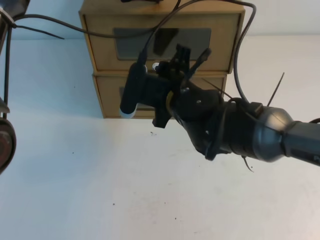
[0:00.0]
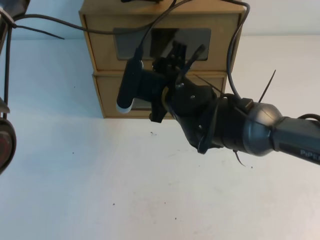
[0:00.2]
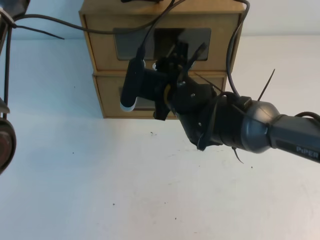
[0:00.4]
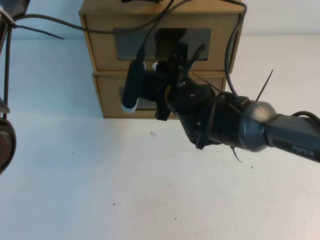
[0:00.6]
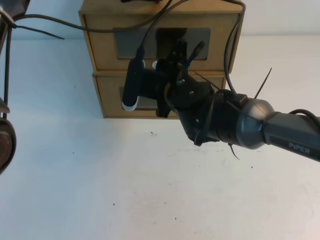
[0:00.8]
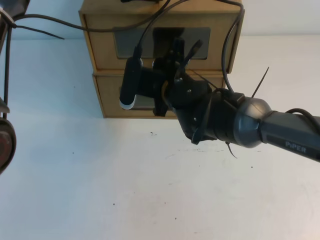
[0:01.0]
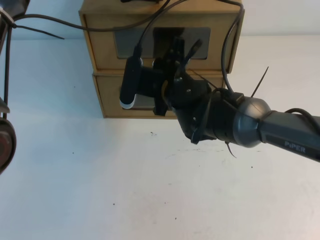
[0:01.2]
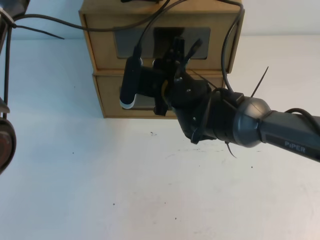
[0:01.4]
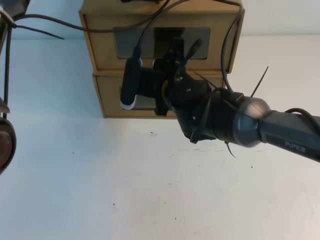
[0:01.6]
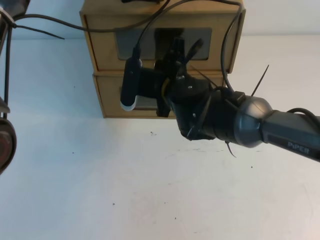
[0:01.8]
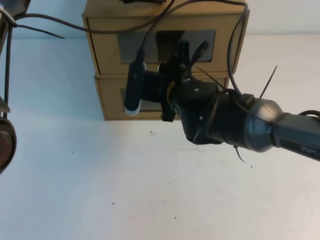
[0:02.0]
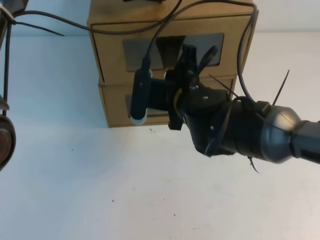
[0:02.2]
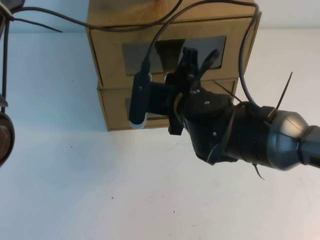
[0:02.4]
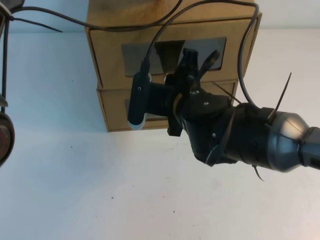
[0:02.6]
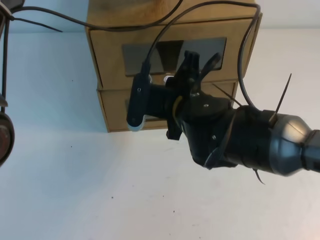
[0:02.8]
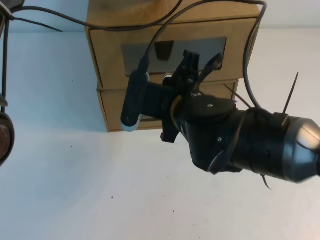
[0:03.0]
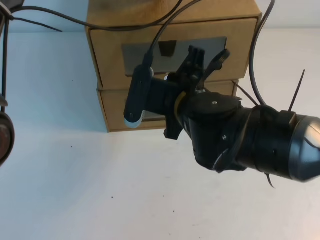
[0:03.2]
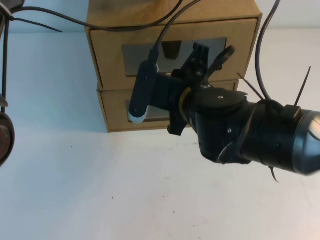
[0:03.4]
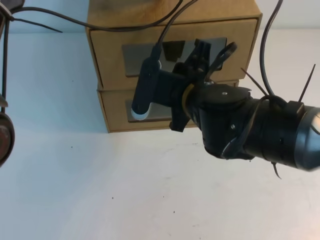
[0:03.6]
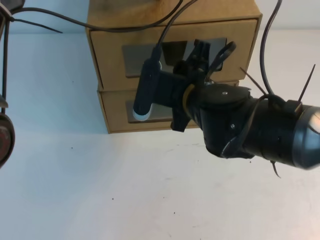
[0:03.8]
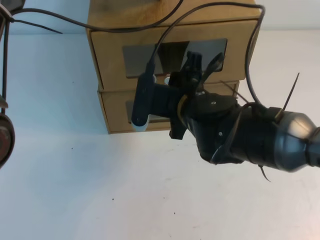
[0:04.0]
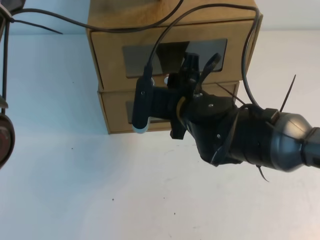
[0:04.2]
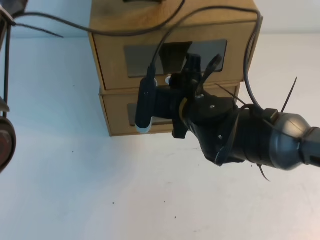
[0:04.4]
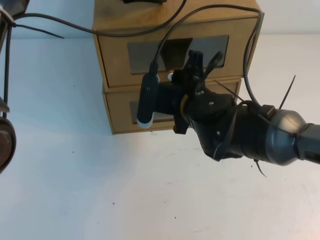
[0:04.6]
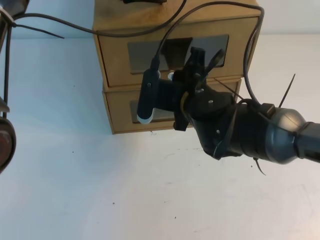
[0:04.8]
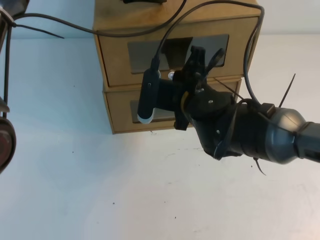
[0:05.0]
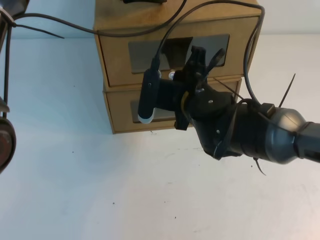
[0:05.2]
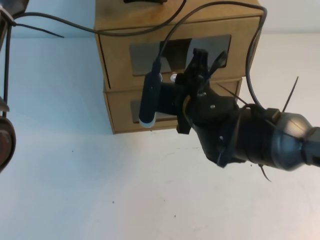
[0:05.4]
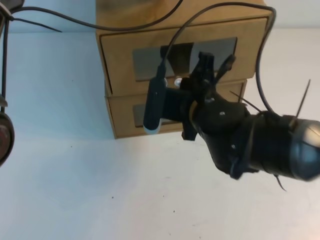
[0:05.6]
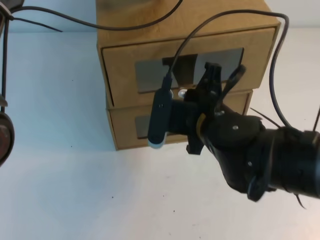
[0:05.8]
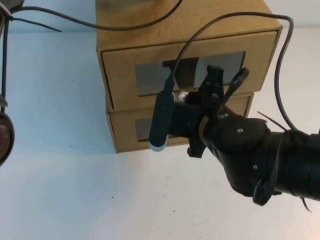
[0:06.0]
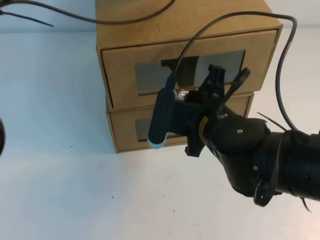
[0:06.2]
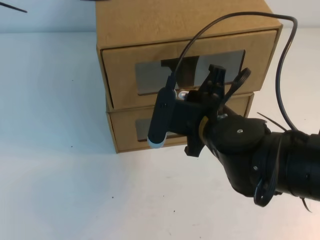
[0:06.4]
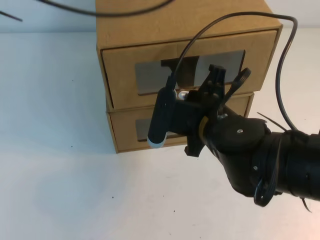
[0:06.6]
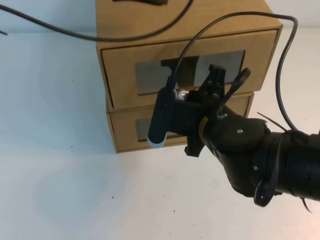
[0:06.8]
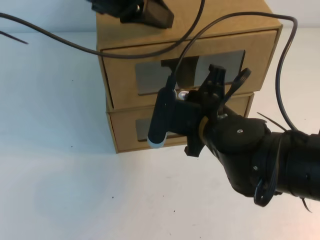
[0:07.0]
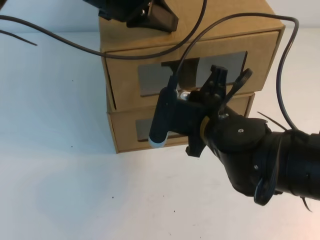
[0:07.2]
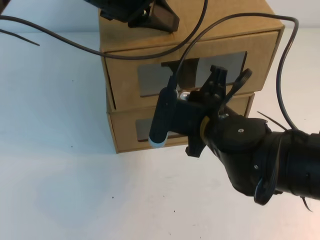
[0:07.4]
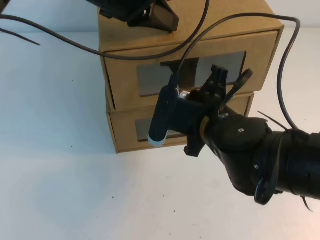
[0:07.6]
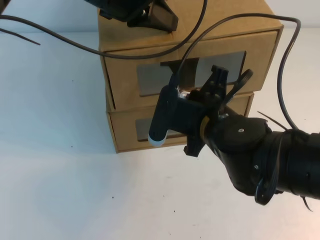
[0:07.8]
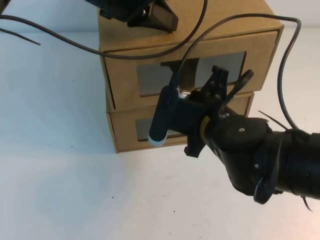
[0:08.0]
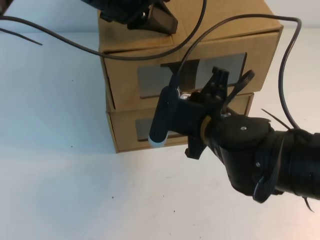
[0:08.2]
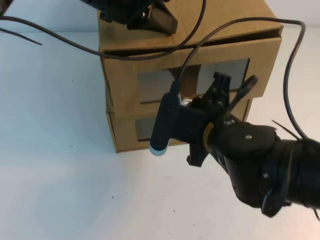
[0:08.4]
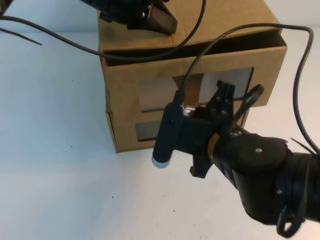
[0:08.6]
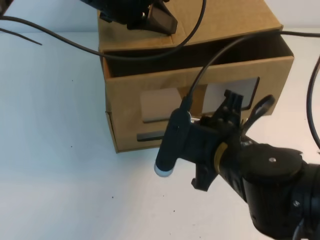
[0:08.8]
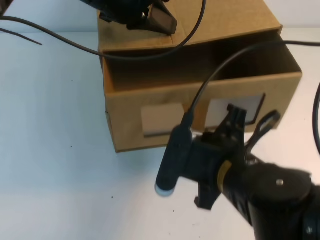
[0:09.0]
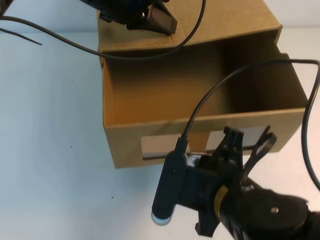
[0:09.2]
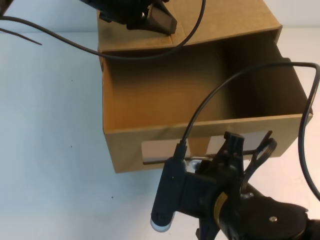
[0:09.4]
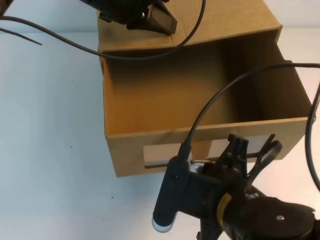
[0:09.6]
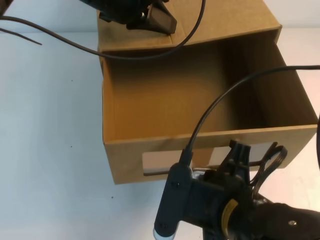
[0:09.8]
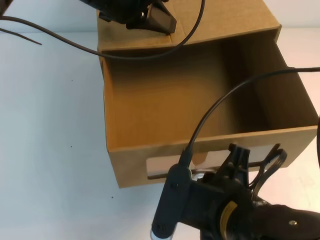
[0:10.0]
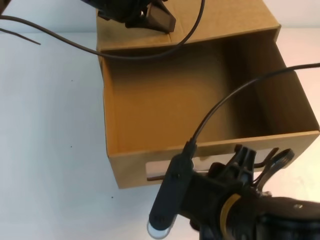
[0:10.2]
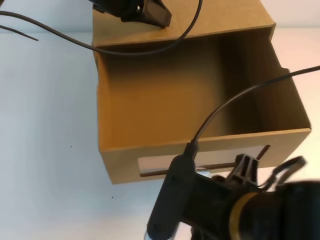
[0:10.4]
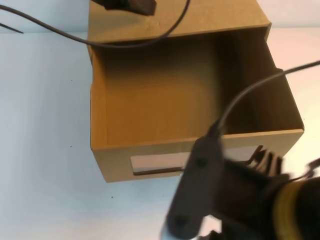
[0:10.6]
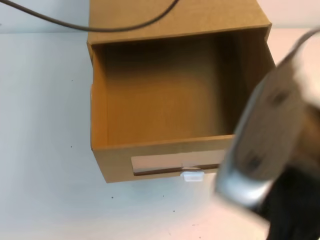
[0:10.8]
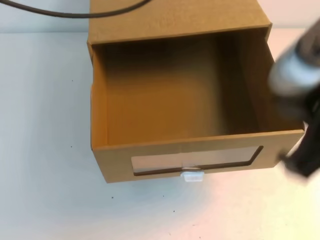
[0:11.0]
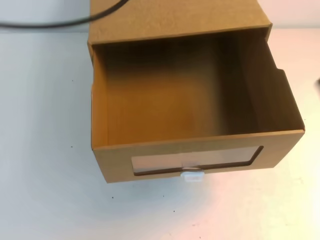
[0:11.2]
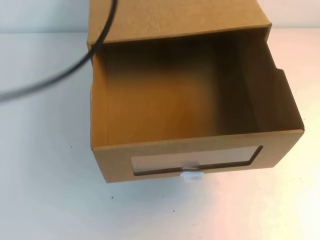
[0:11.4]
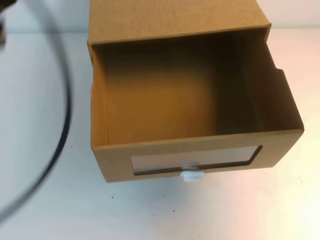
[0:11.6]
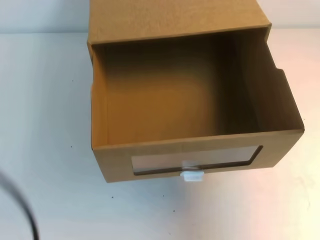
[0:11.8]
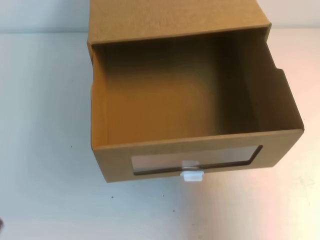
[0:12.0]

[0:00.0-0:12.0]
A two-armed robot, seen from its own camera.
Task of the whole recording: open the shoebox on the table.
0.0 to 1.6 s: The right gripper closes its fingers.
1.6 to 3.0 s: The right gripper is displaced backward by roughly 10 cm.
3.0 to 4.4 s: The right gripper opens its fingers.
4.4 to 6.0 s: The right gripper shifts by about 5 cm, and closes its fingers.
6.0 to 7.6 s: The left gripper travels backward by approximately 5 cm.
7.6 to 9.0 s: The right gripper goes some 5 cm backward.
9.0 to 10.4 s: The right gripper travels backward by some 10 cm, and opens.
10.4 to 12.0 s: The left gripper heads backward and to the left, covering about 30 cm, while the right gripper shifts some 25 cm to the right and upward, and closes up.

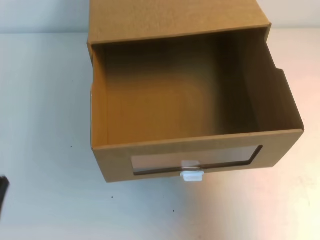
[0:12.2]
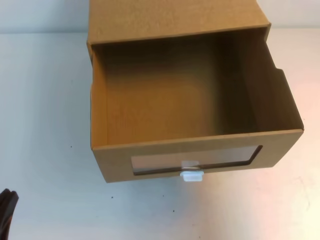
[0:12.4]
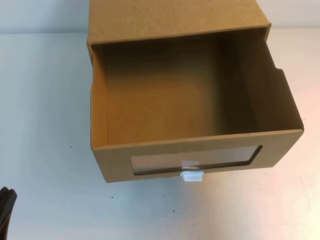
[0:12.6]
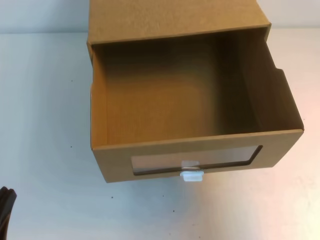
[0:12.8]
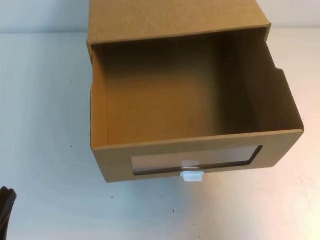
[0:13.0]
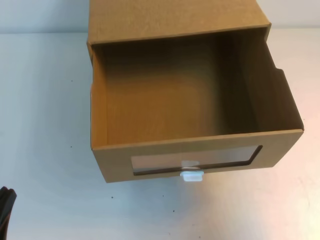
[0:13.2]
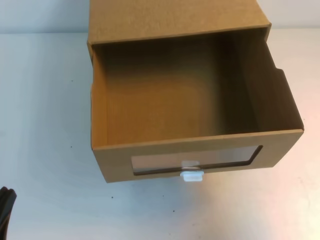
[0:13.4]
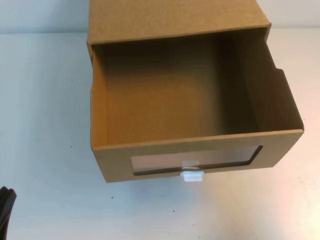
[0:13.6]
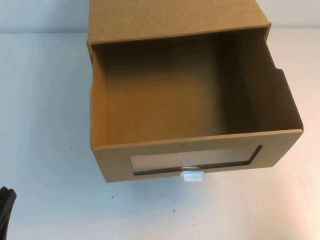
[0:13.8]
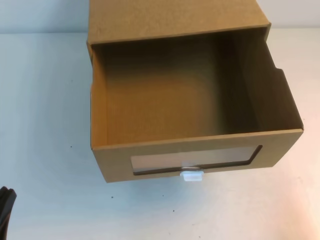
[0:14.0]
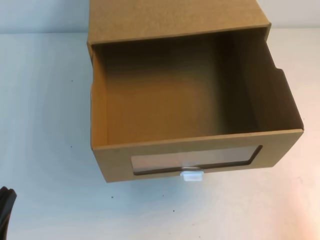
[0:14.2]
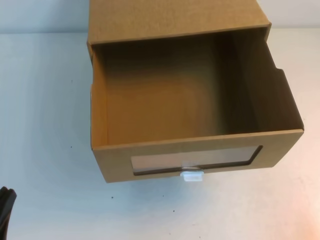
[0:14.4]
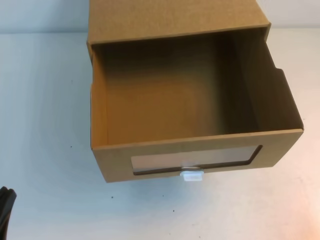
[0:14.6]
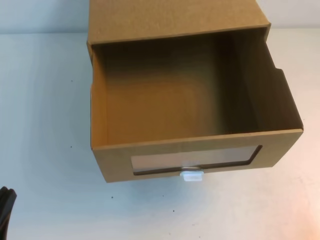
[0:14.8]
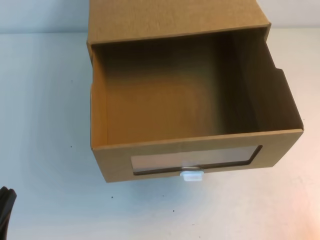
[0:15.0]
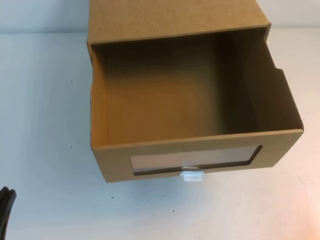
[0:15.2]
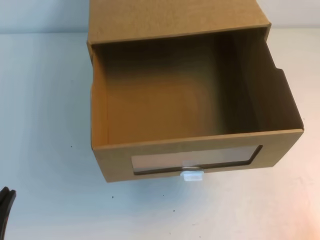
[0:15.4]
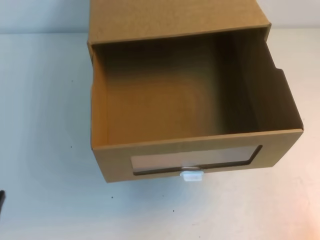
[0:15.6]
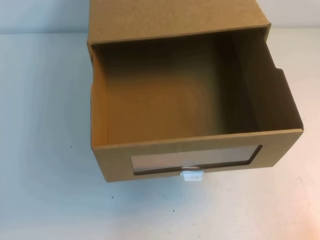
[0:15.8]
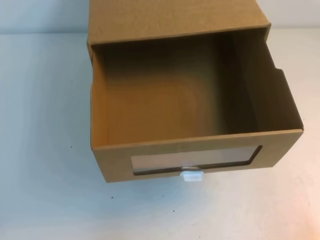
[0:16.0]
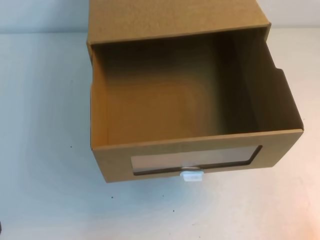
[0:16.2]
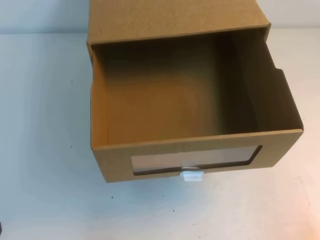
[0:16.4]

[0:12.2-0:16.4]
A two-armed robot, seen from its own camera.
Task of the whole recording: open the shoebox on the table.
Step, 12.2 to 16.4 s: Open the shoe box.
12.2 to 13.6 s: The left gripper moves downward, about 10 cm. Meanwhile the right gripper ends up roughly 5 cm from where it was.
13.6 to 15.0 s: The right gripper is displaced downward and backward by about 20 cm.

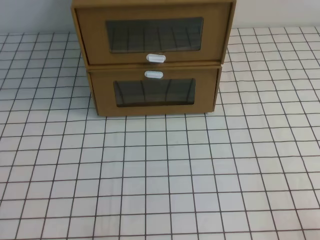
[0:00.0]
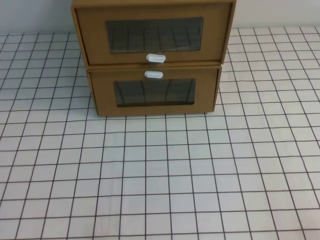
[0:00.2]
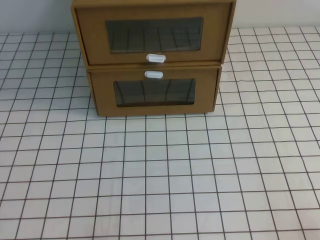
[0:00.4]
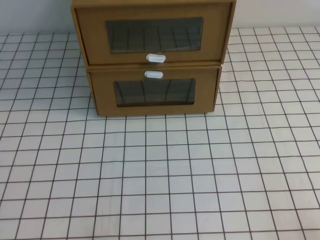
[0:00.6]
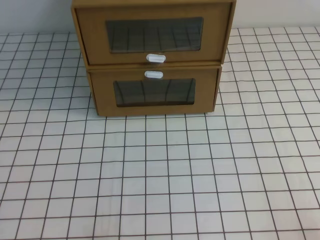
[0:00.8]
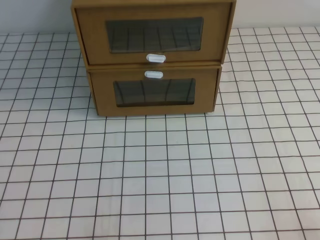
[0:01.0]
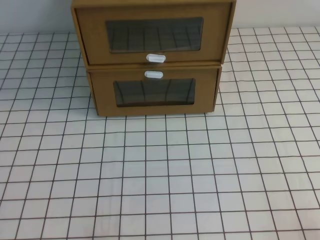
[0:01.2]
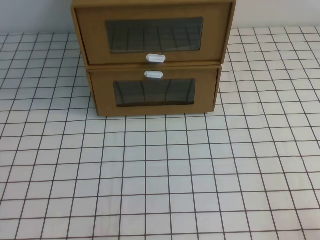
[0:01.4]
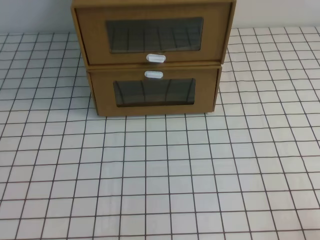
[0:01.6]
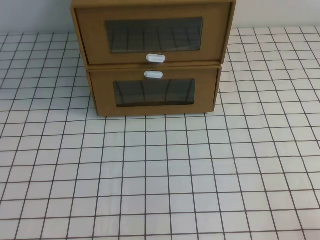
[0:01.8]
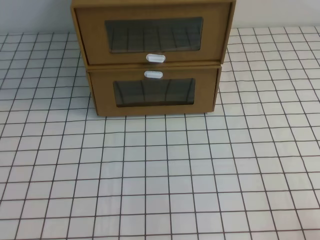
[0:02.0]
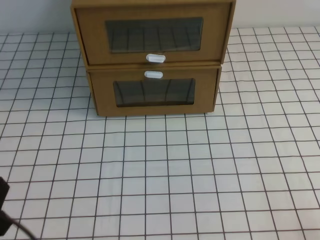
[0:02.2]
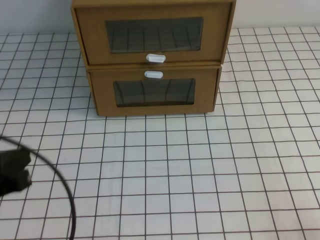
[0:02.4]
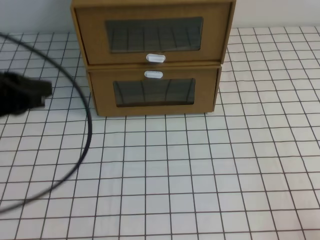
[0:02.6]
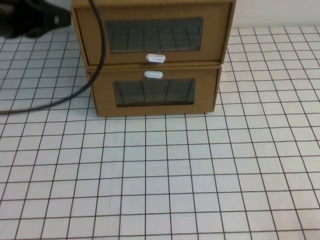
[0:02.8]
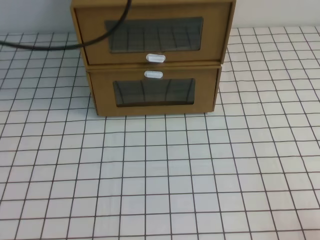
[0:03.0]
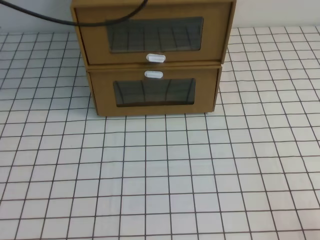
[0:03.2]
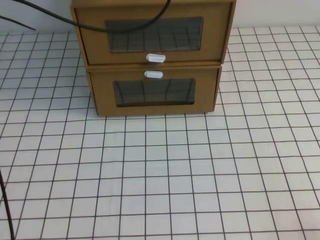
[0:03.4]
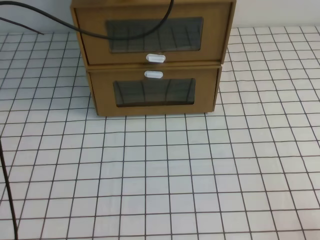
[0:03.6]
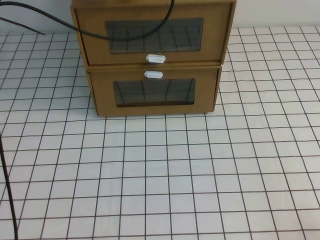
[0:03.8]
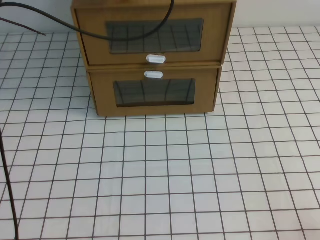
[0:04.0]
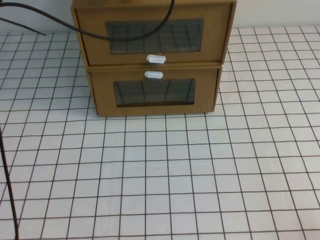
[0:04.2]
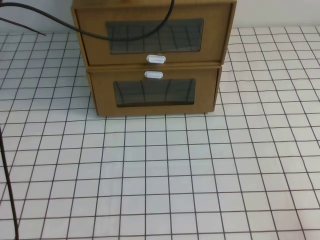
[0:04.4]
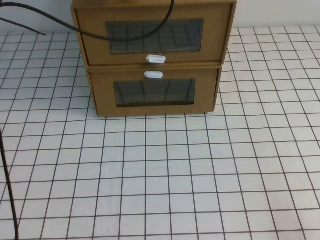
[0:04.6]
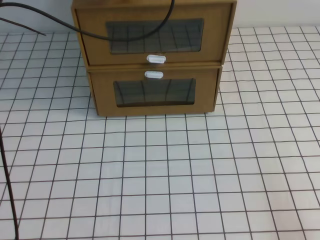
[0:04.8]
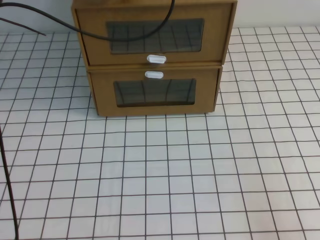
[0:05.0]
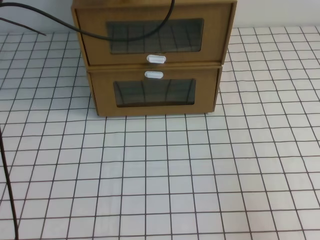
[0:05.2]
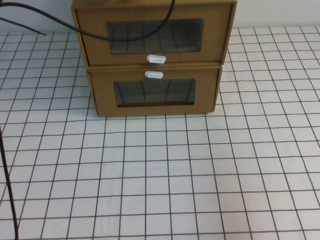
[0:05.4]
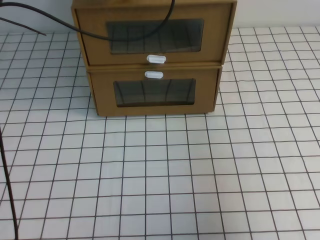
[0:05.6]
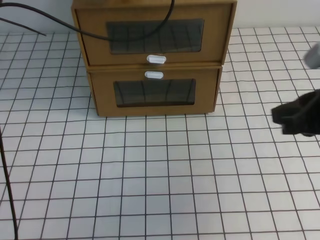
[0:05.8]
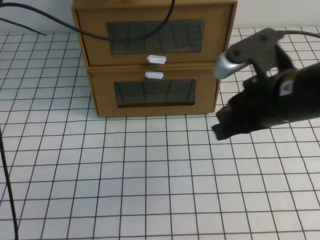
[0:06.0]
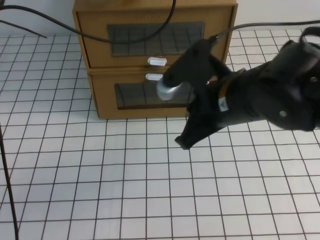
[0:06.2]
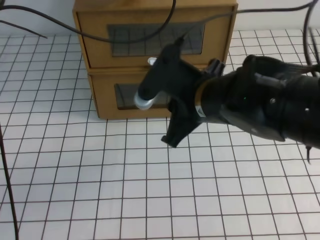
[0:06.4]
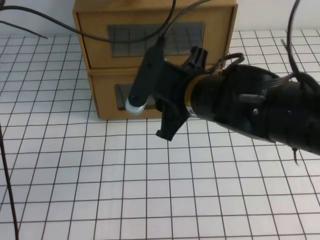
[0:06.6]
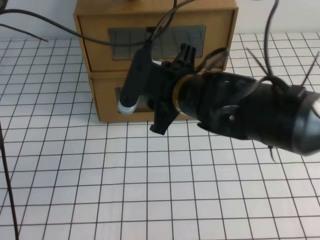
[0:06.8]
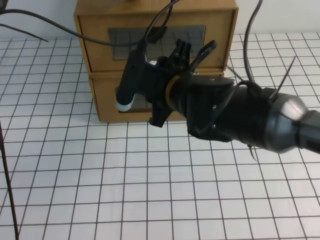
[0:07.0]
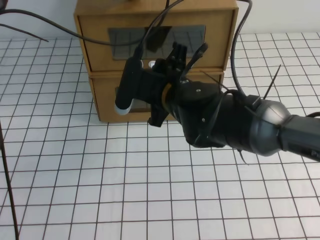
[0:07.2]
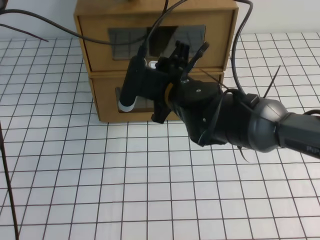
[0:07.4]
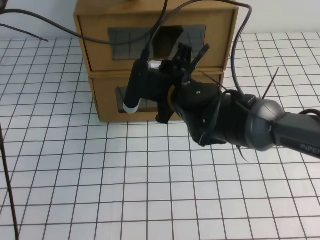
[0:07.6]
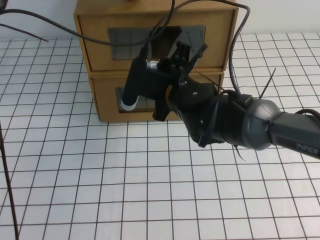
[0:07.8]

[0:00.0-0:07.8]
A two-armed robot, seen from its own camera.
Task of the whole recording: open the shoebox on the white tablecloth.
1.6 to 3.2 s: The left gripper travels forward and upward by some 40 cm.
3.2 to 4.6 s: The left gripper shifts roughly 5 cm forward.
4.6 to 6.2 s: The right gripper goes about 30 cm to the left, forward and upward.
6.2 to 7.8 s: The right gripper is displaced forward, to the left and downward by approximately 15 cm, and opens.
